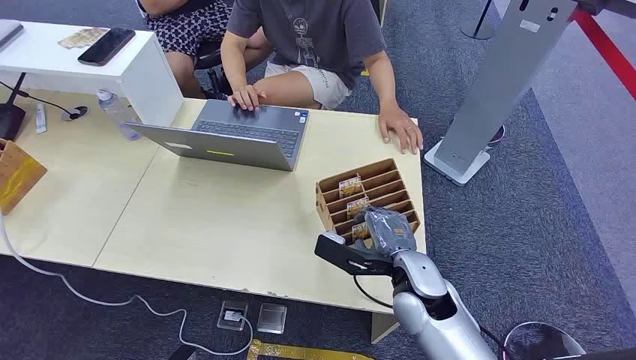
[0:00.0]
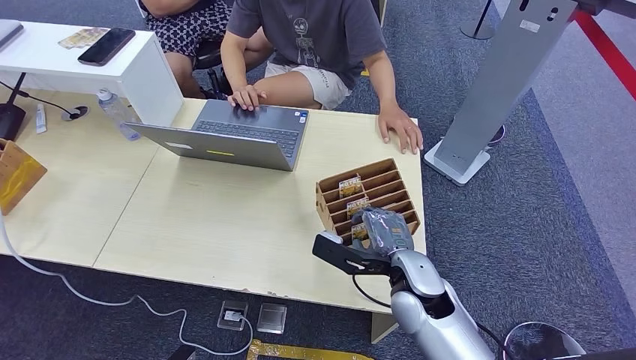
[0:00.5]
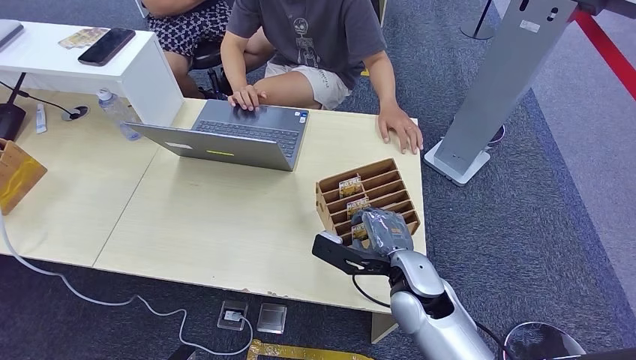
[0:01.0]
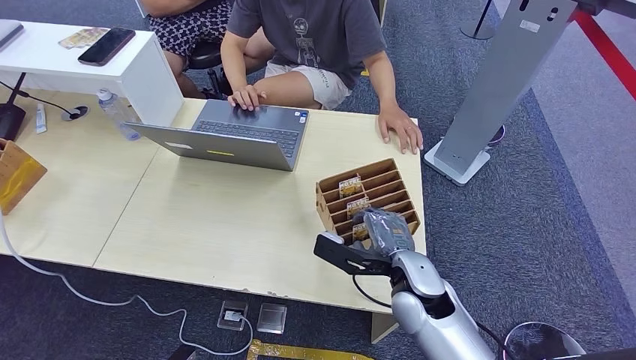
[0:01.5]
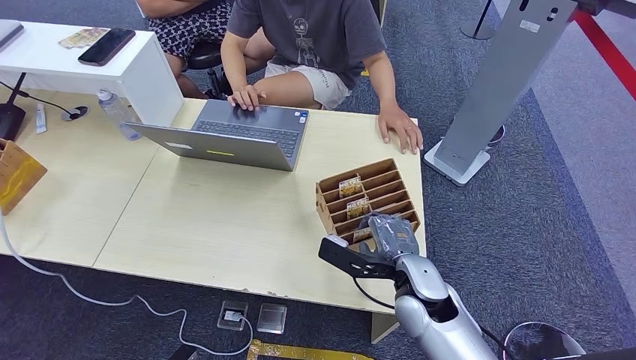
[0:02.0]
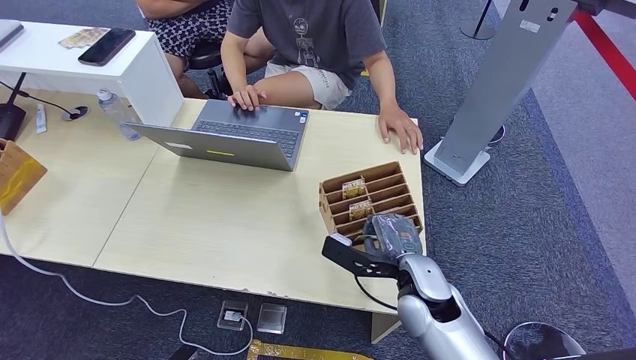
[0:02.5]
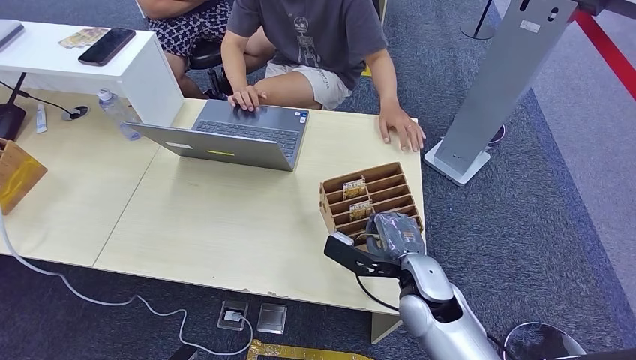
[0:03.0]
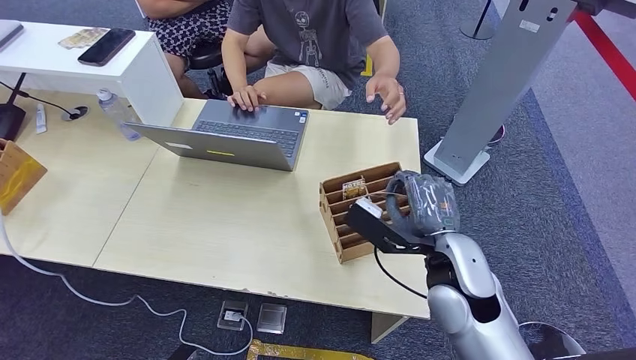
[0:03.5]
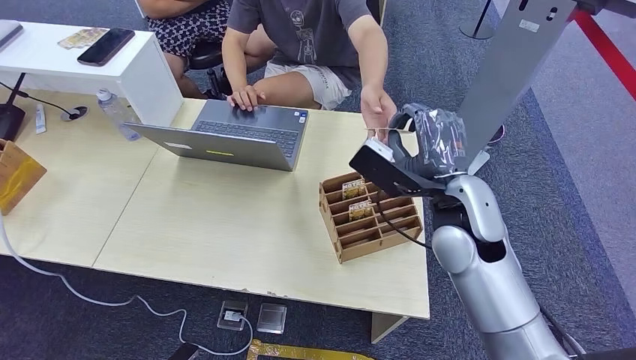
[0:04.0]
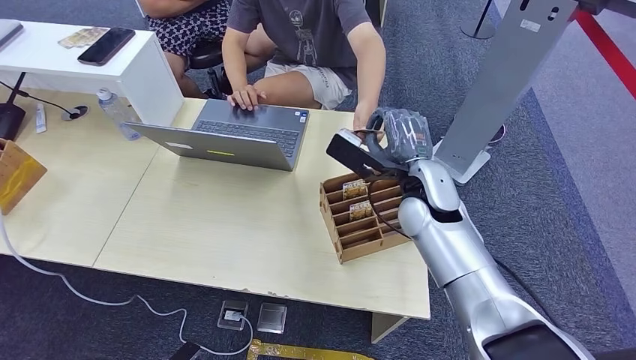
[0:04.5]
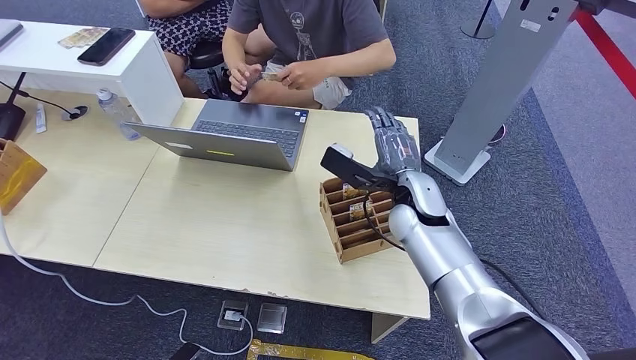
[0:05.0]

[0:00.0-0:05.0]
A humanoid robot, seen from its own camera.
Step, 0:00.0 to 0:03.5: Pick up the room card from the card holder.
Step, 0:04.0 to 0:05.0: Hand the room card to the target.
0:02.5 to 0:05.0: The right hand goes approximately 15 cm forward and upward.

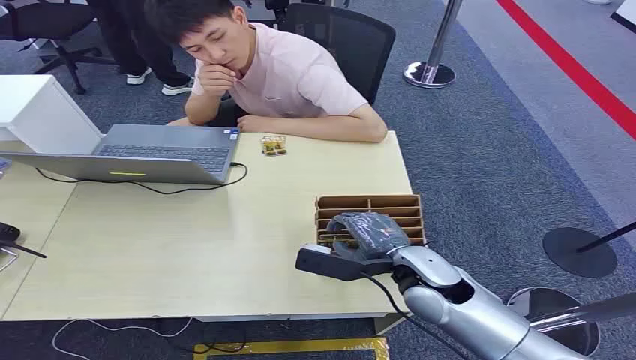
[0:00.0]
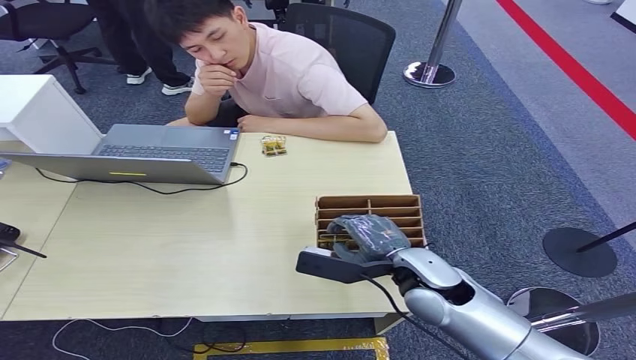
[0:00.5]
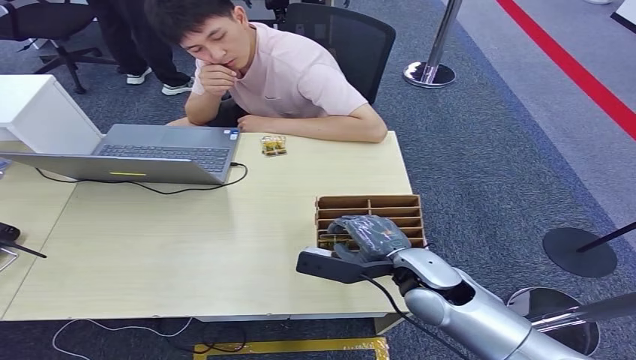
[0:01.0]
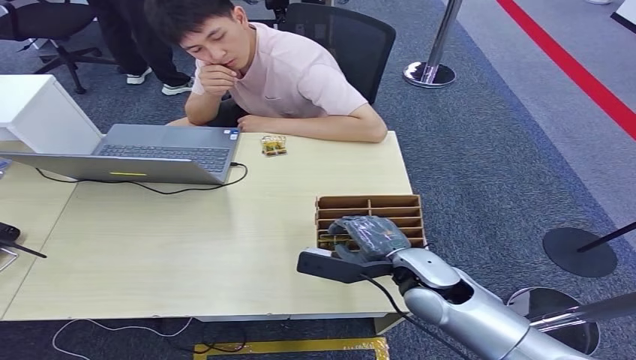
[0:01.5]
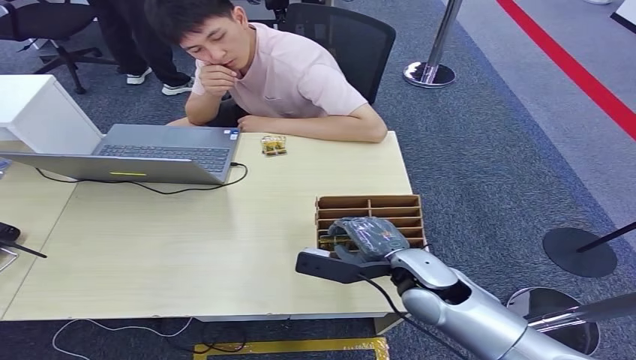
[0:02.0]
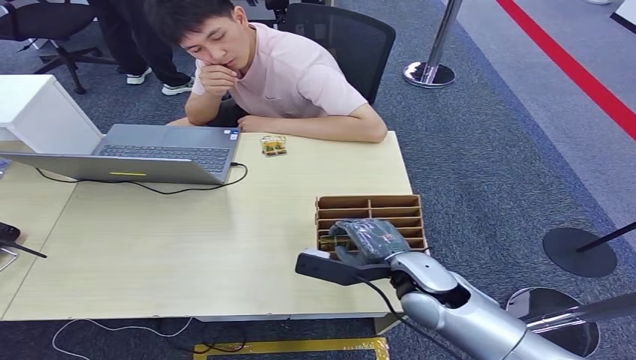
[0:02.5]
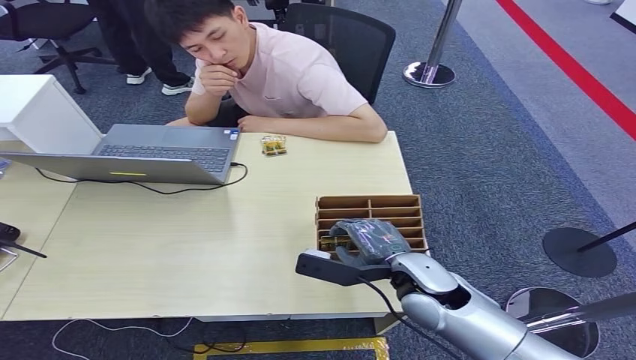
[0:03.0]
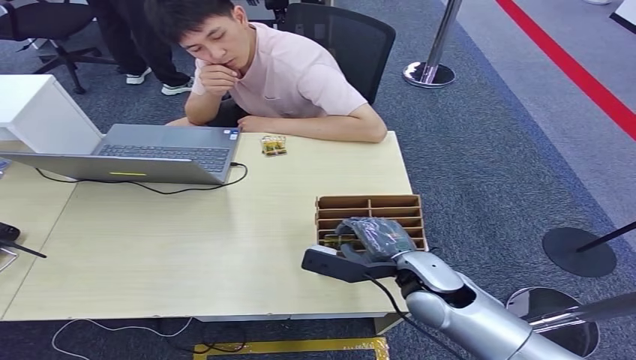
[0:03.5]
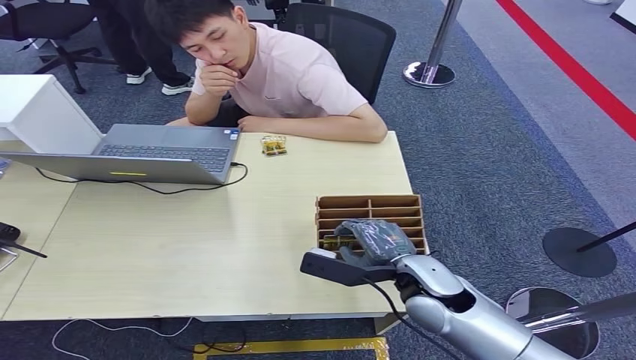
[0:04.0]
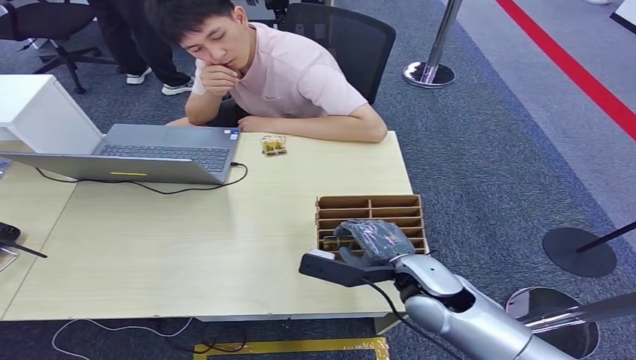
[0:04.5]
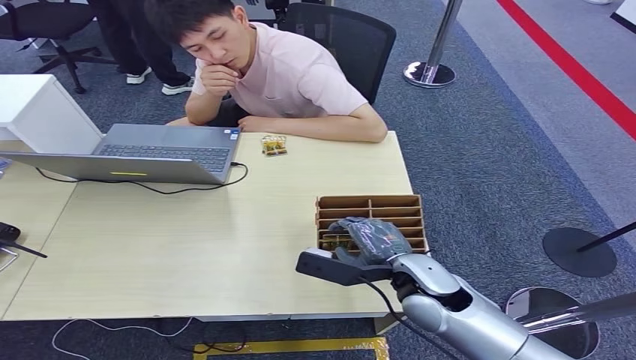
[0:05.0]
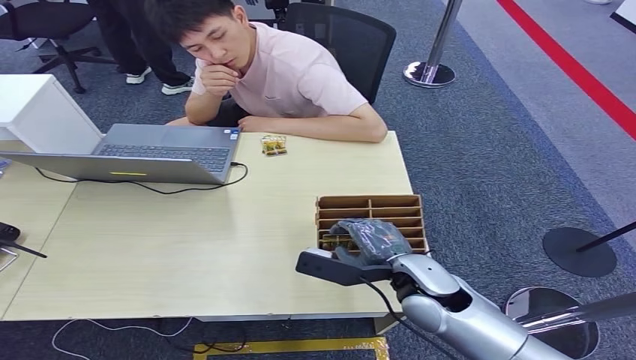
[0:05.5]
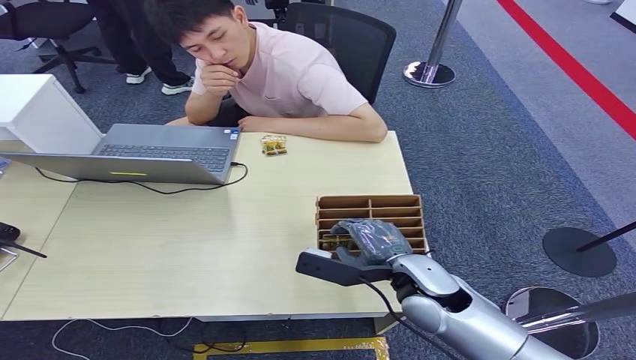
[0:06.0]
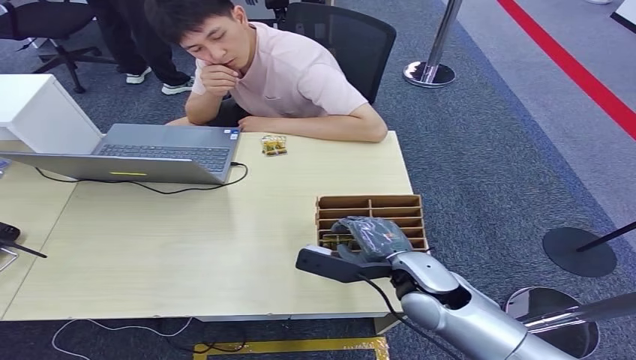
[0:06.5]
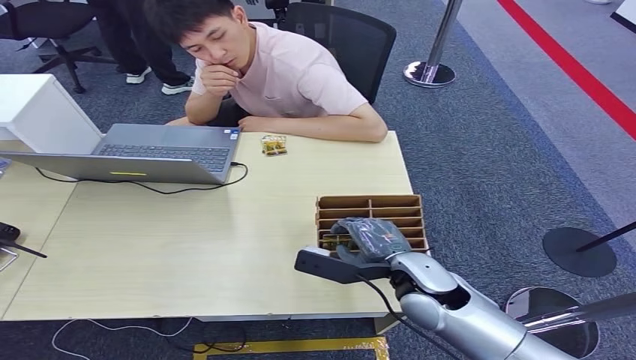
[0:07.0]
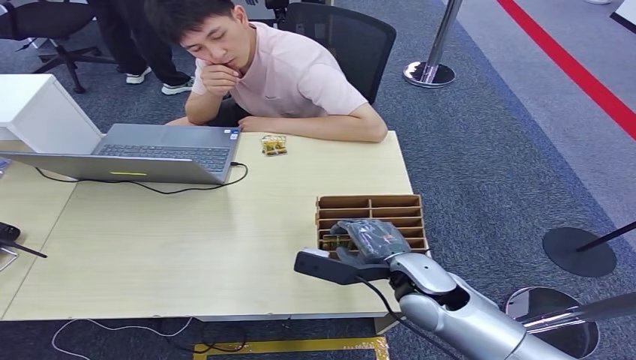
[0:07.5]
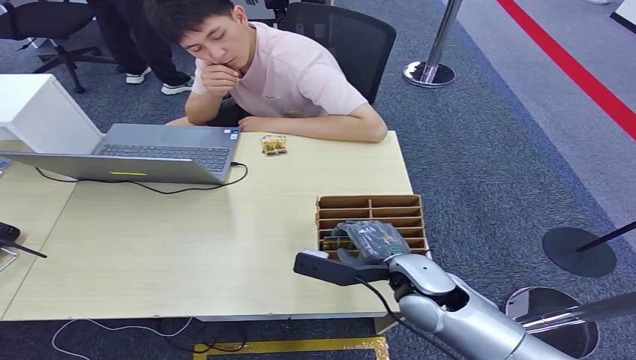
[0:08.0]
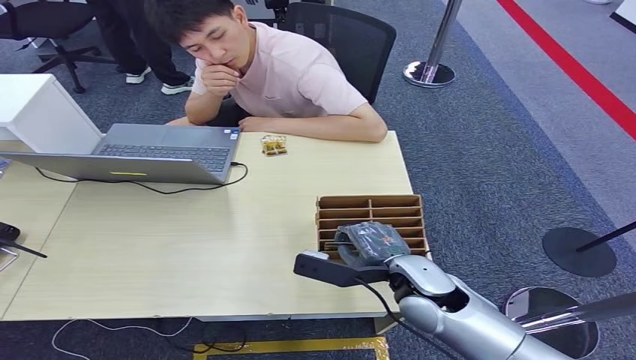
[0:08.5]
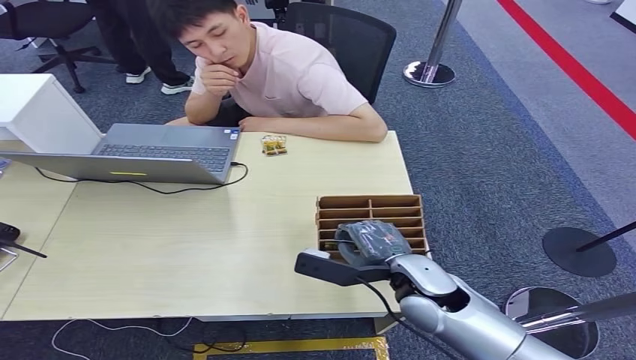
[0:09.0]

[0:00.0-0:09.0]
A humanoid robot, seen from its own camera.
0:02.0 to 0:09.0: Both hands stay about where they are.

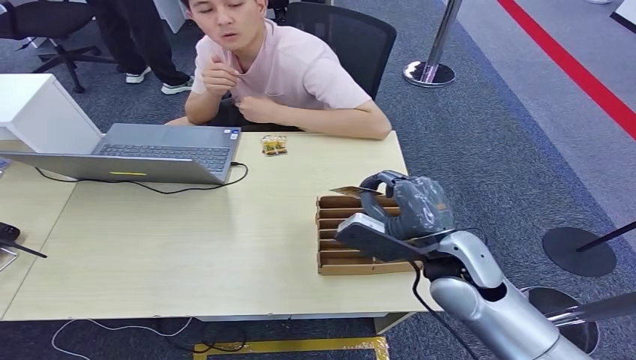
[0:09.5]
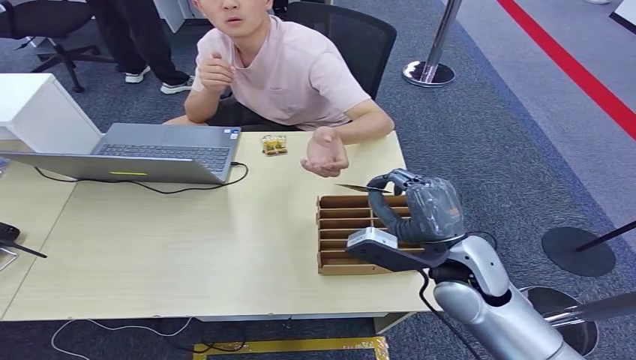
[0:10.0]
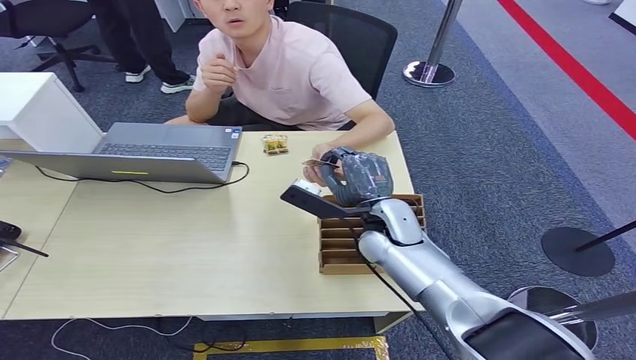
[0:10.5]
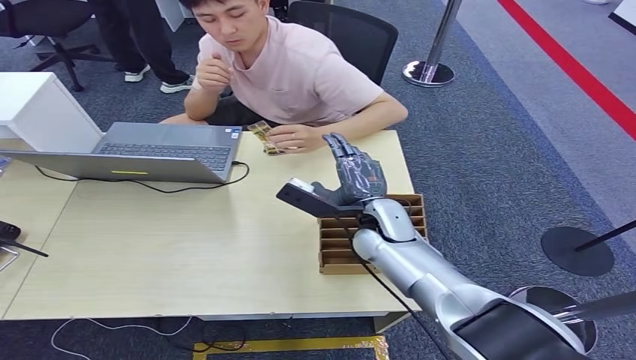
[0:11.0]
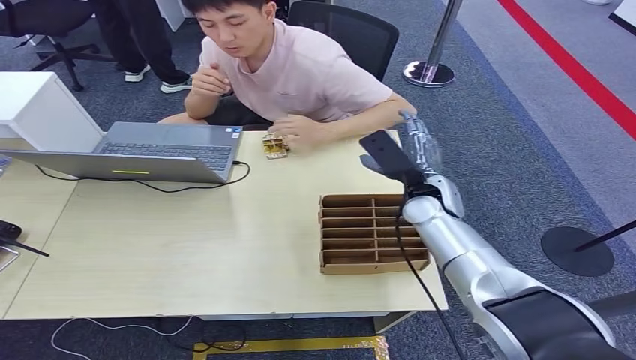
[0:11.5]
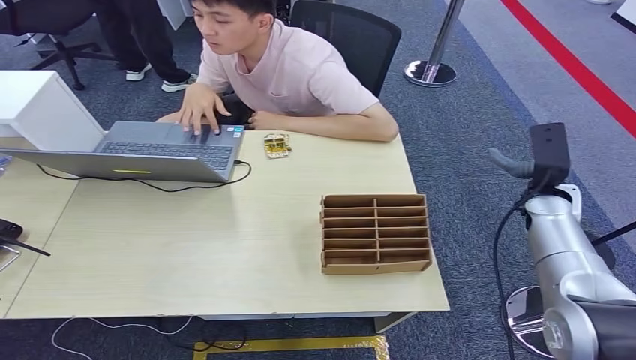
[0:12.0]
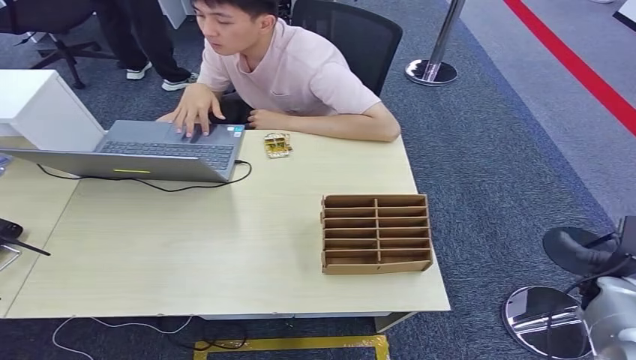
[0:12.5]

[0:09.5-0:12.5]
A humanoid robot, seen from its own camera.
Step, 0:09.5 to 0:12.5: Hand the room card to the target.
0:09.5 to 0:11.0: The right hand moves forward, to the left and downward, approximately 15 cm.
